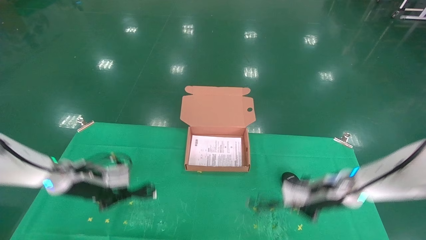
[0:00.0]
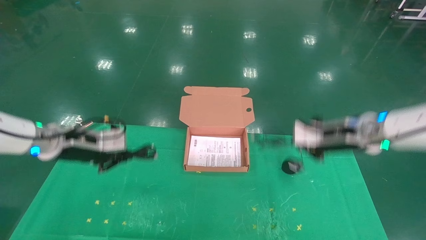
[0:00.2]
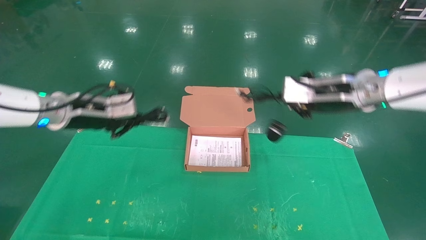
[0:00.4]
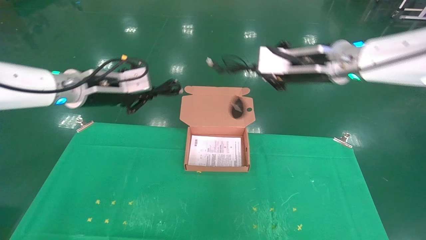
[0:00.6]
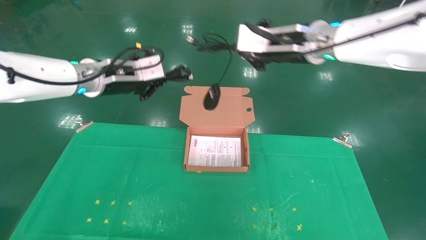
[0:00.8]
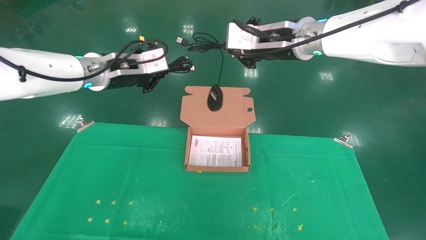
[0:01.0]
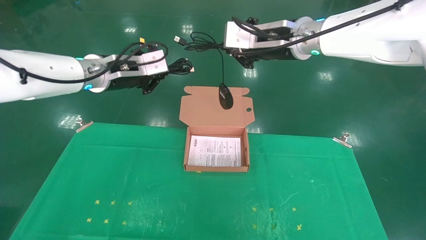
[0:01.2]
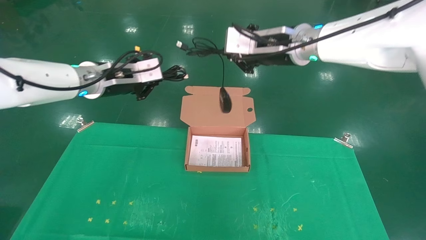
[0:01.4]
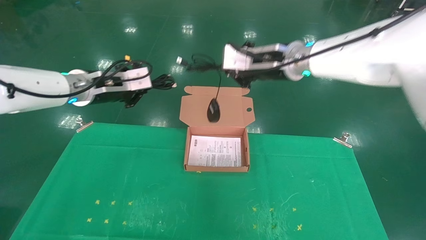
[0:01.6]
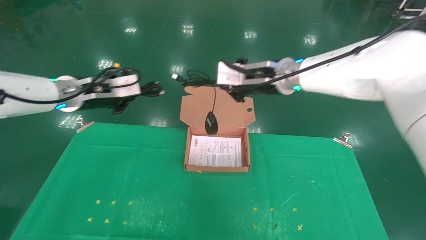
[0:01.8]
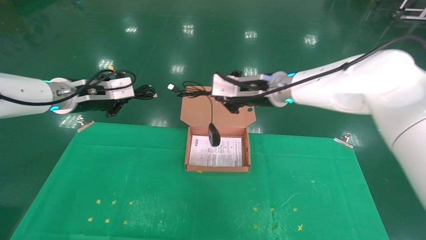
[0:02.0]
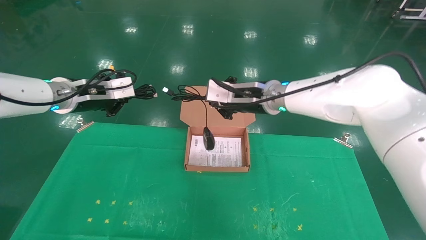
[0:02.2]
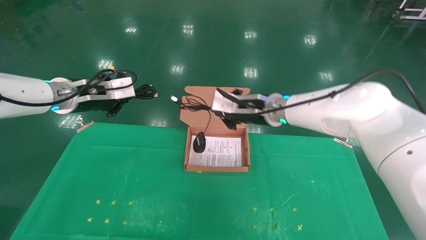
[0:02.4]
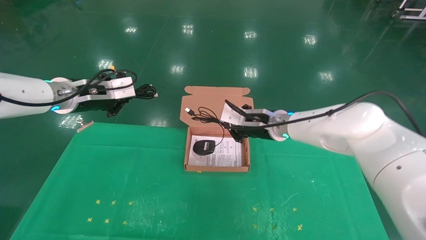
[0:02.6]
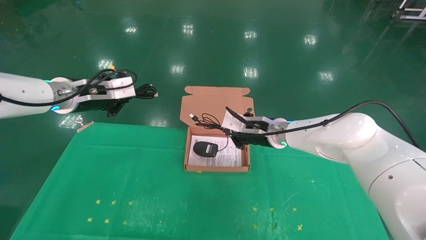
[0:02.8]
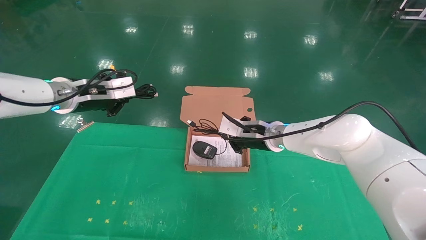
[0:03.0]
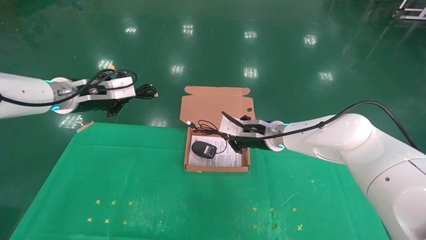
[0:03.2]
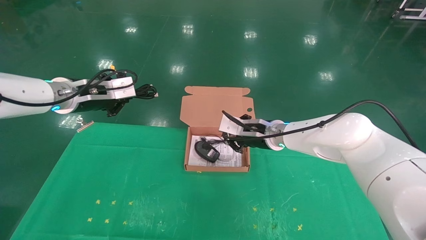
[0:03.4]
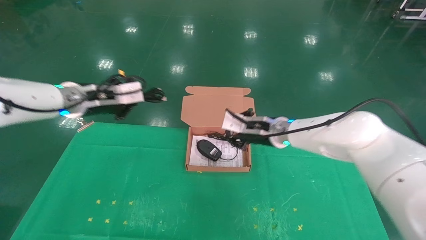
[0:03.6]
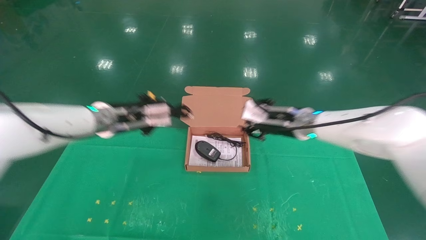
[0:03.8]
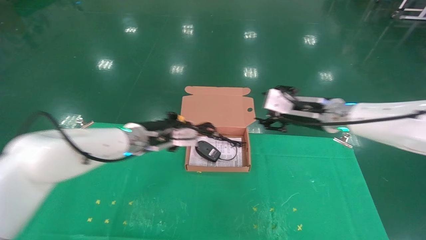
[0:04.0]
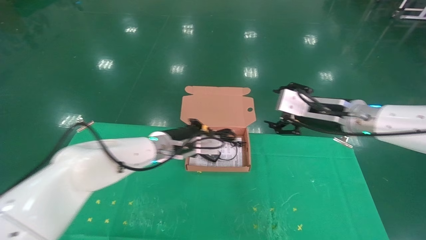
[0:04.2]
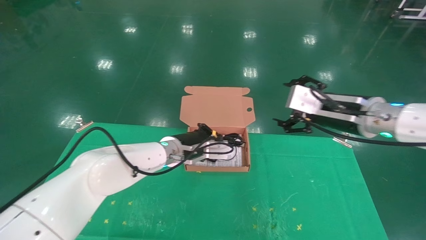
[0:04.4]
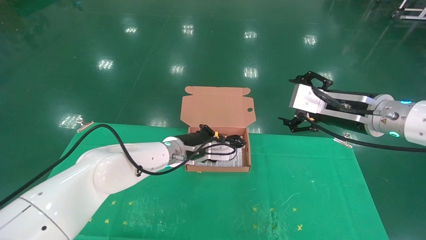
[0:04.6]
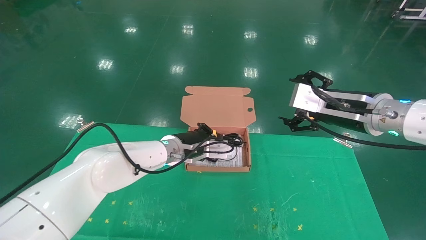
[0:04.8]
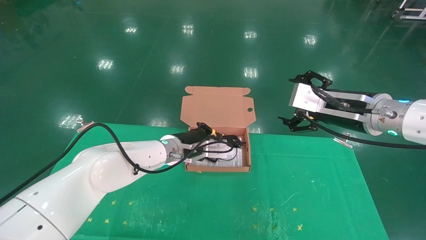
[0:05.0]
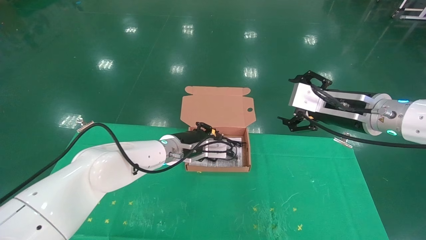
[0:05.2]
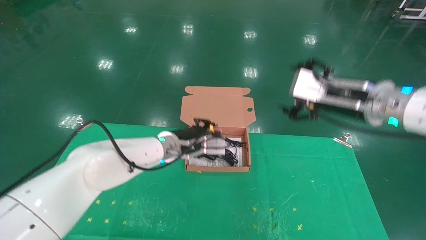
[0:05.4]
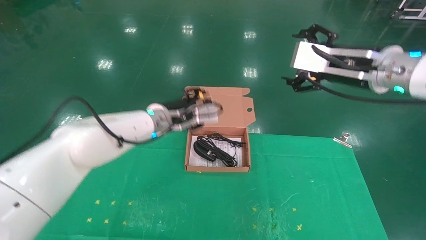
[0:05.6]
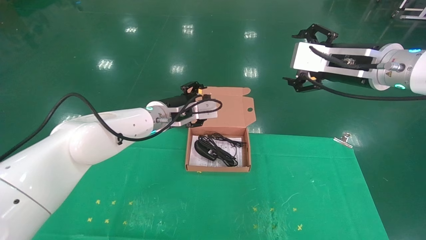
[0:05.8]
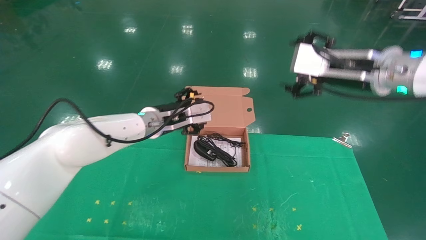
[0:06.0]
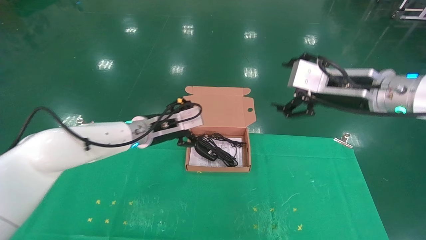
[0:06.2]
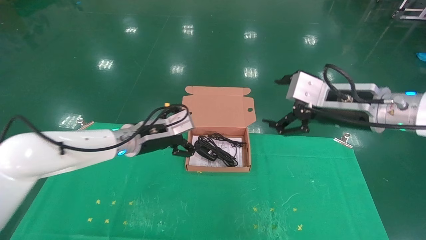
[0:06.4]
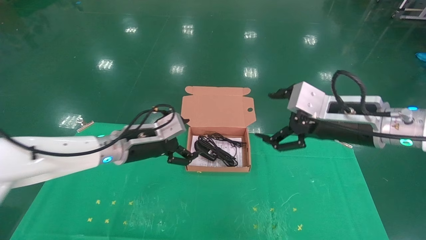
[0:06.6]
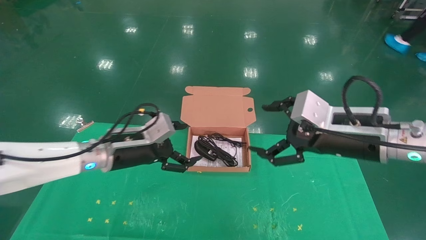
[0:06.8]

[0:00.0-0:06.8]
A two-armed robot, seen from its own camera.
Task of the whole recording: grasp data cable left put into box grasp mouse right put into box.
Step, 0:00.8 to 0:06.0: Place the mouse and power cord into the box.
0:00.0 to 0:01.4: The left gripper moves upward, some 20 cm. The right gripper shifts roughly 30 cm upward and to the left.
0:01.4 to 0:02.8: The right gripper moves downward, approximately 20 cm. Meanwhile the left gripper heads to the left, covering about 5 cm.
0:02.8 to 0:04.0: The right gripper is displaced to the right, backward and upward by approximately 15 cm, and opens, while the left gripper heads to the right and downward, covering approximately 15 cm.
0:04.0 to 0:05.4: The right gripper heads backward and upward, covering roughly 10 cm, and opens its fingers. Meanwhile the left gripper goes approximately 5 cm to the right.
0:05.4 to 0:06.8: The right gripper goes about 5 cm downward. The left gripper travels to the left and backward by roughly 15 cm, and opens.
